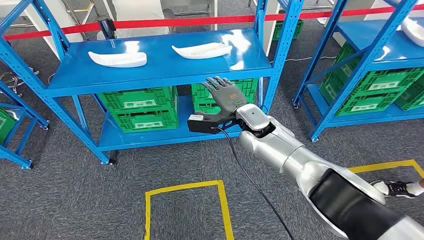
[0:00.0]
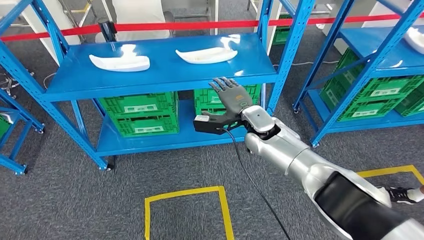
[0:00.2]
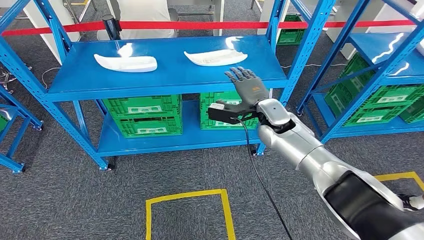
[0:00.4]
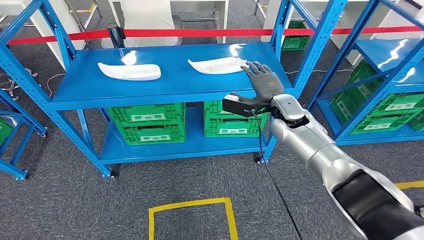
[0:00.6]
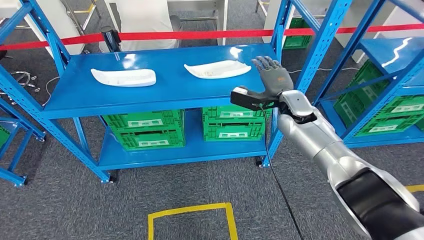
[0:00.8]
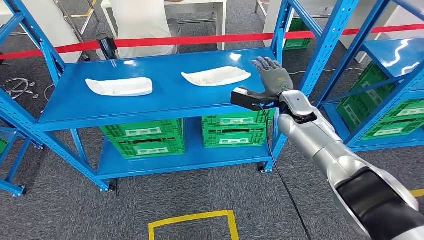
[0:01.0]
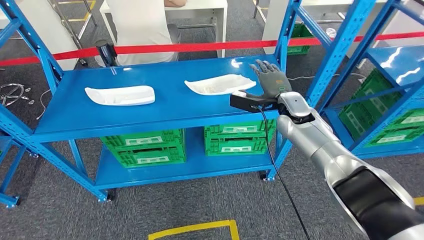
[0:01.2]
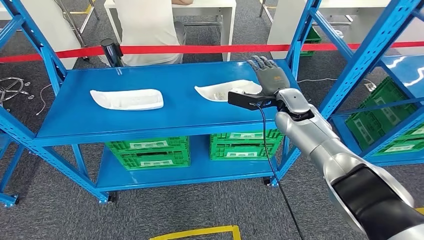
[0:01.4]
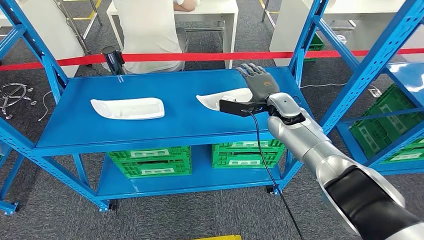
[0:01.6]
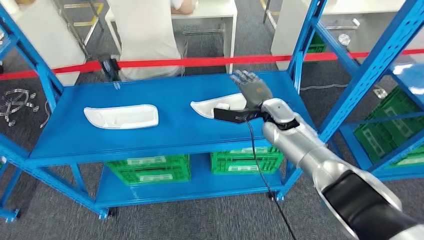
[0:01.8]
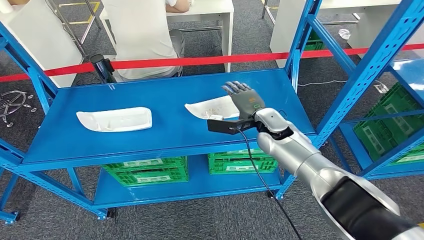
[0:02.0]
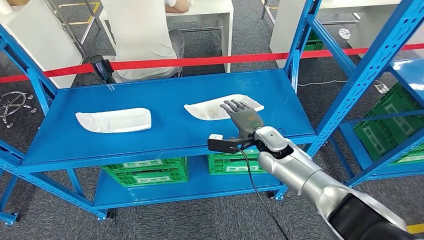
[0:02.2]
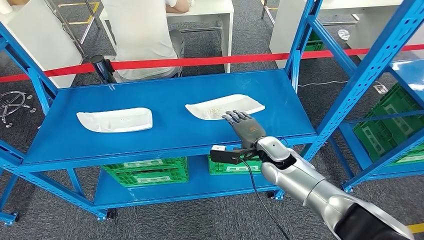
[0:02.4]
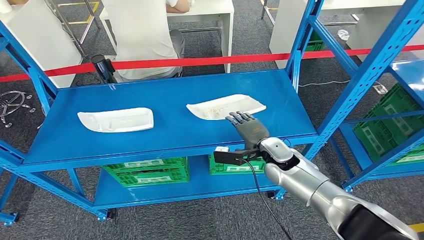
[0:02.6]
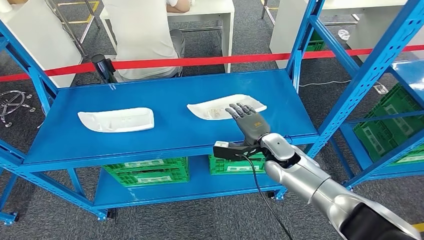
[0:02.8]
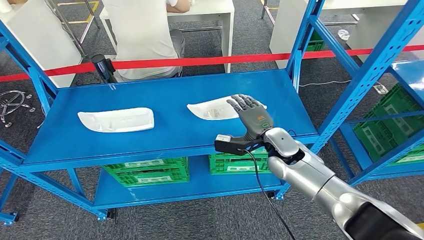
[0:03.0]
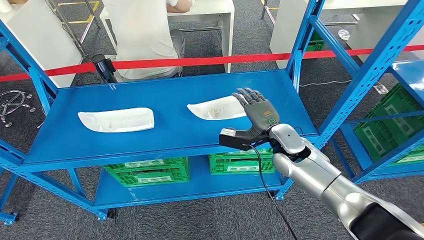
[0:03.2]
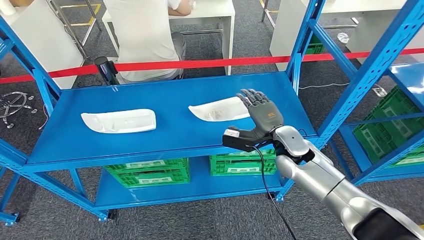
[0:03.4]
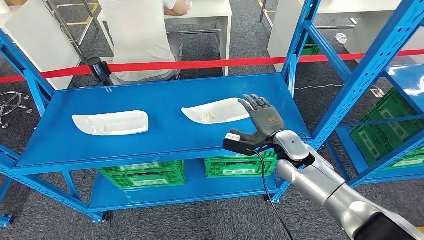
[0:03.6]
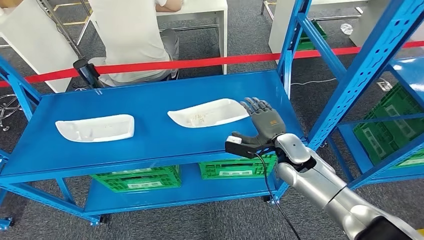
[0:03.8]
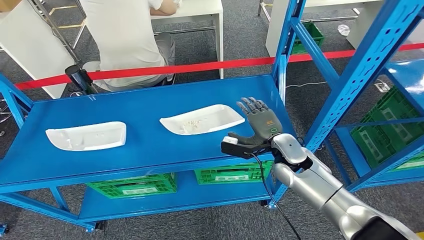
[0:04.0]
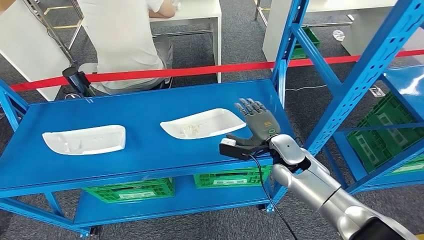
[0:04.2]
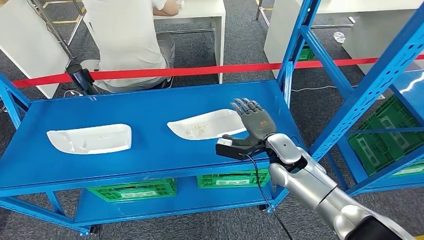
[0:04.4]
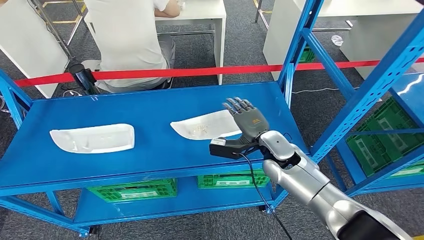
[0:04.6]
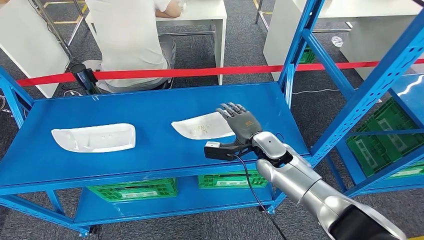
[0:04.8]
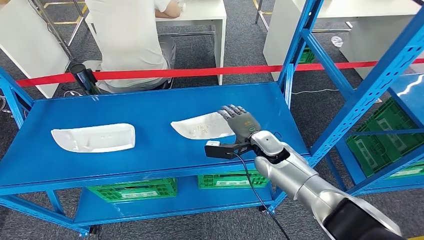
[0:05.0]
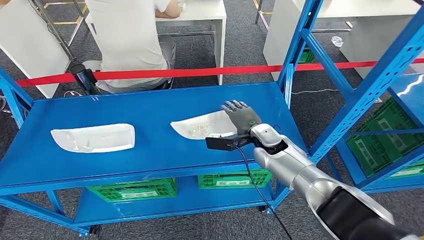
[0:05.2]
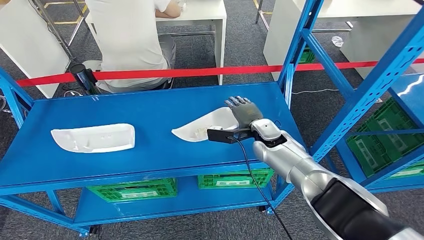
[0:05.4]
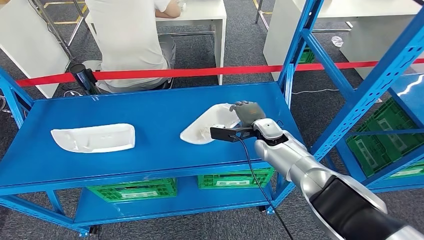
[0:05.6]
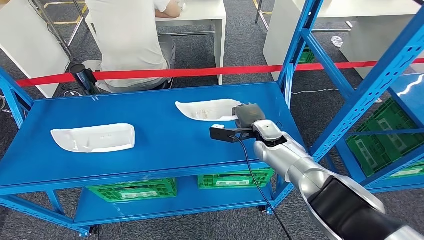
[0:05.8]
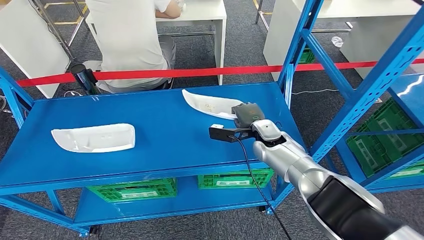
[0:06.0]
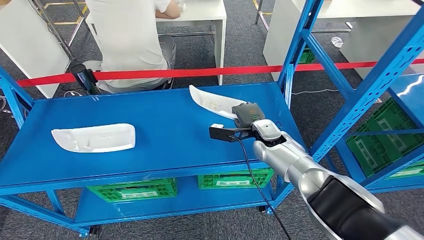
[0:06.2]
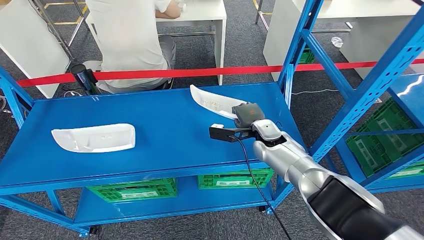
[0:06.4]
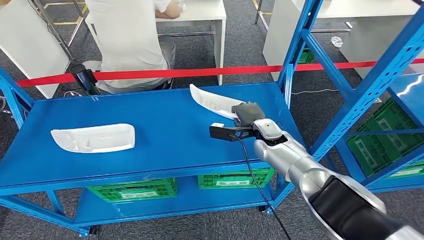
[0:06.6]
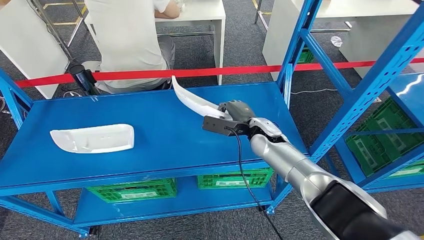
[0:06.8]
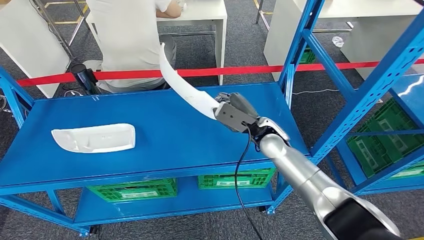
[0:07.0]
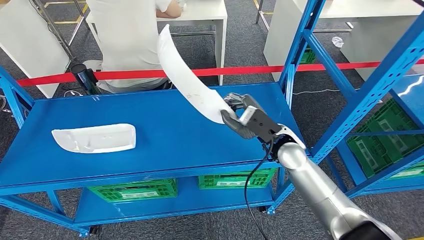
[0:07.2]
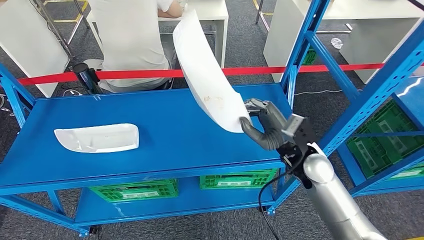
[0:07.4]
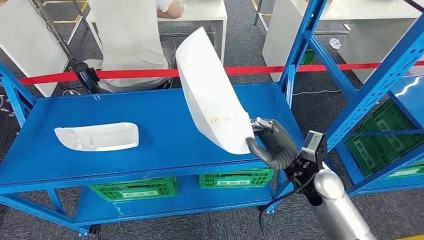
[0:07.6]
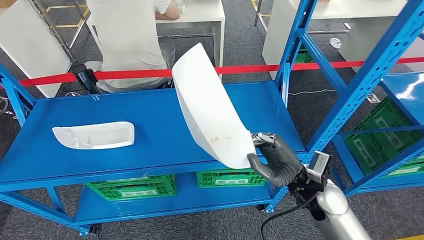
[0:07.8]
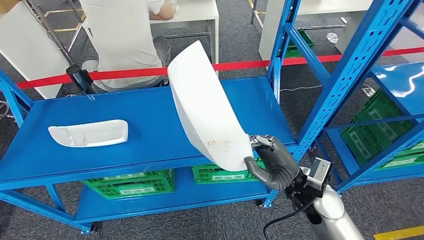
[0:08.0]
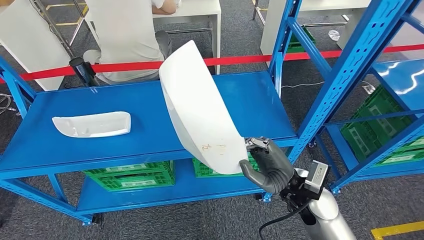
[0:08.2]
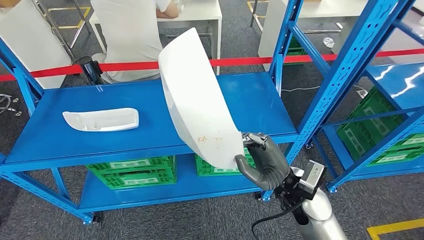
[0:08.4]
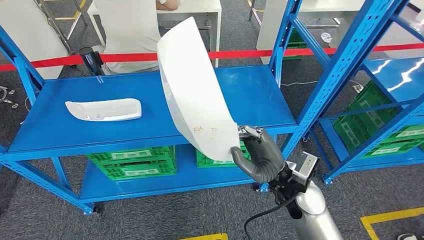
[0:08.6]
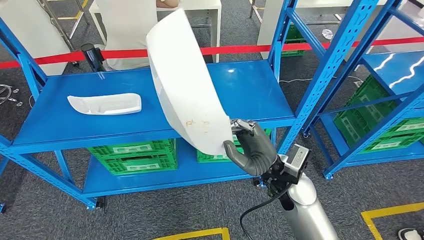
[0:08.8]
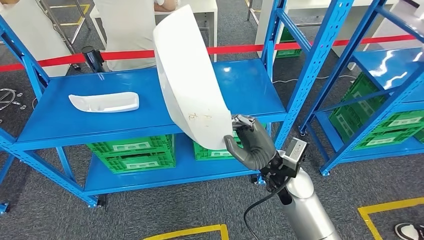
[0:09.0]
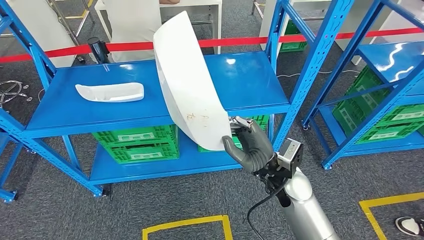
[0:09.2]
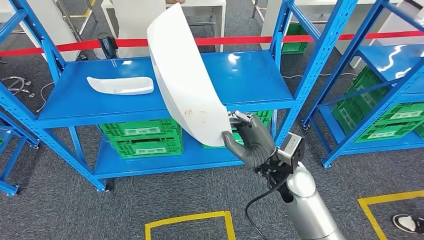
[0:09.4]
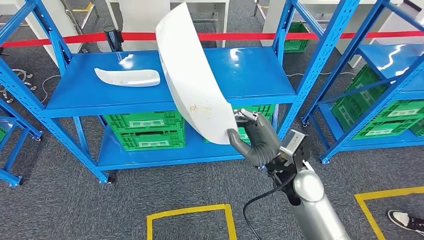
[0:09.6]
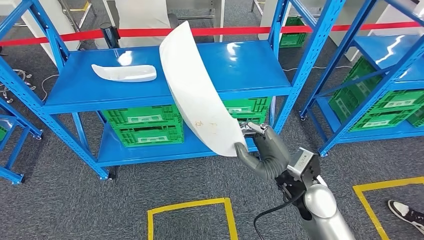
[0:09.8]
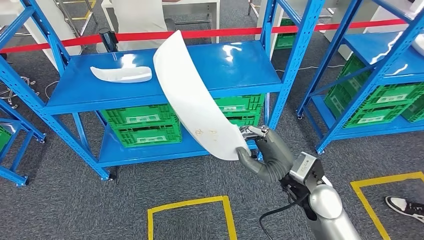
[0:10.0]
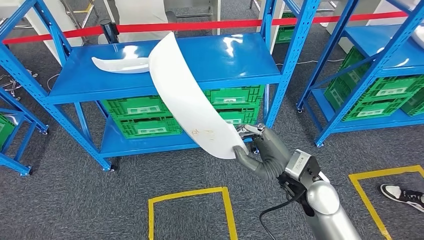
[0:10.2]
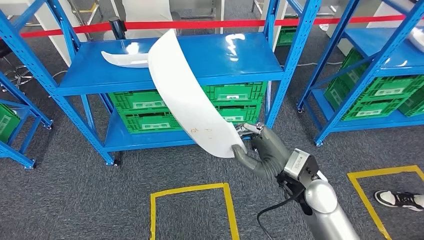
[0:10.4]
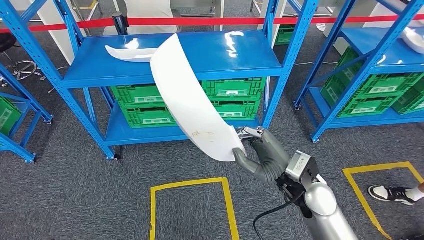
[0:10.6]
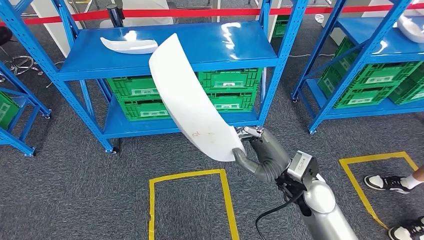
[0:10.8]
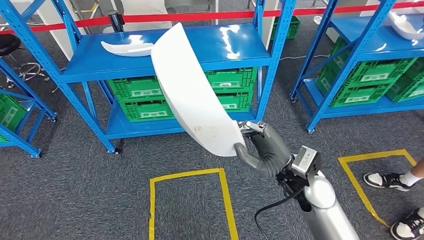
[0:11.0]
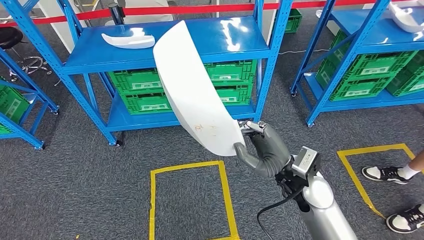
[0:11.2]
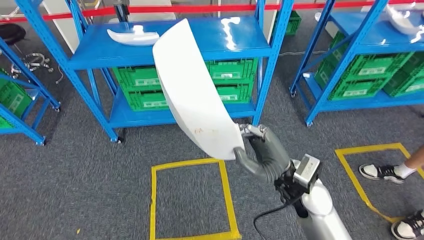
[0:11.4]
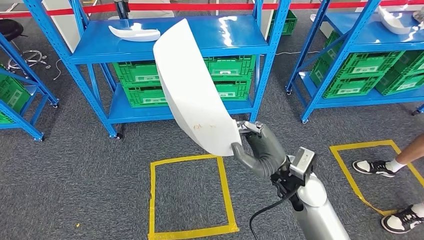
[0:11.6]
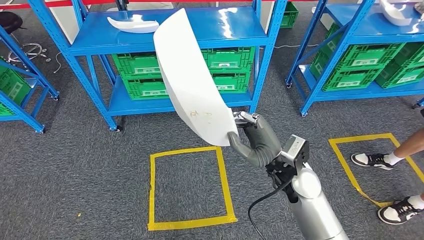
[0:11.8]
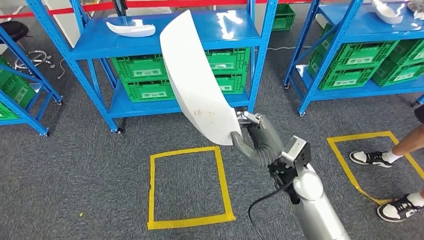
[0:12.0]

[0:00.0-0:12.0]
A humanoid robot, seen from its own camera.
Step, 0:00.0 to 0:08.6: Take small components from the rack.
0:04.4 to 0:06.0: The right hand is displaced forward by roughly 5 cm.

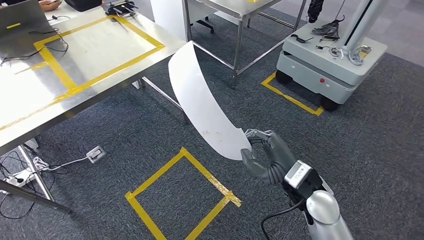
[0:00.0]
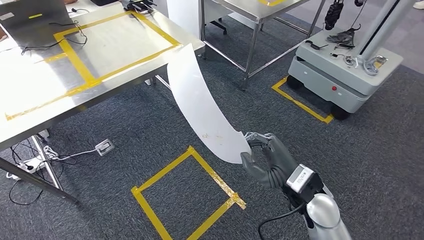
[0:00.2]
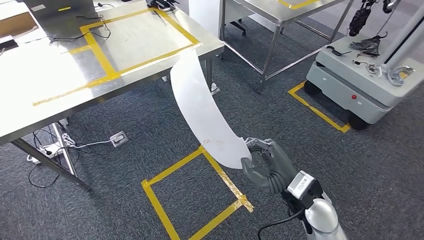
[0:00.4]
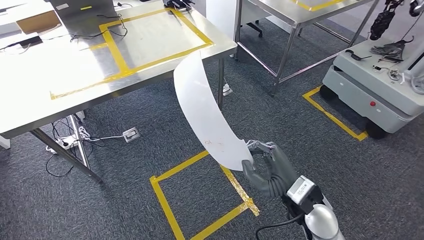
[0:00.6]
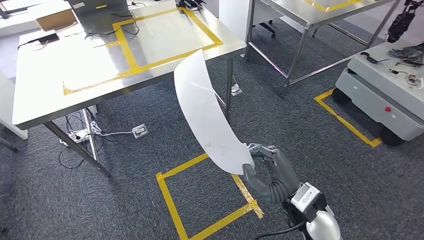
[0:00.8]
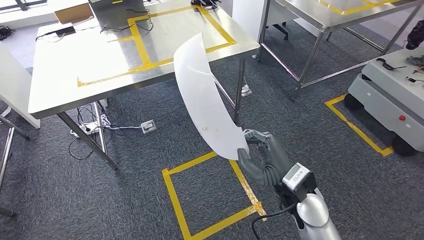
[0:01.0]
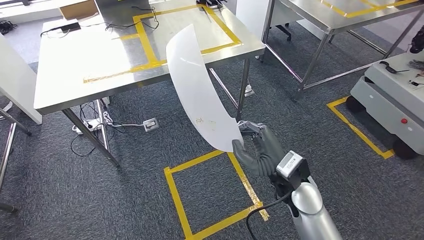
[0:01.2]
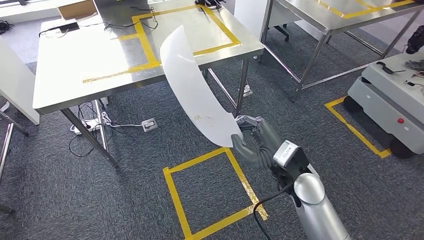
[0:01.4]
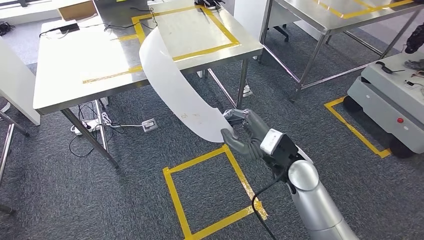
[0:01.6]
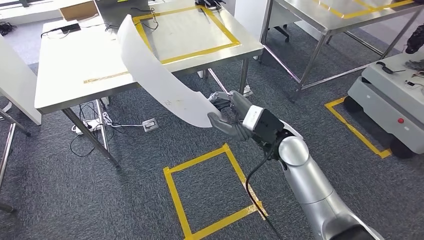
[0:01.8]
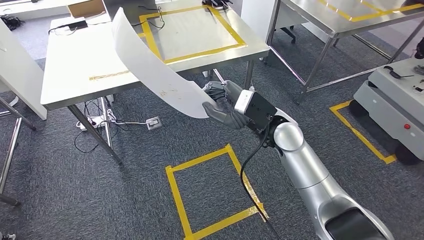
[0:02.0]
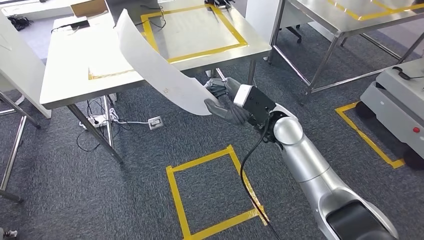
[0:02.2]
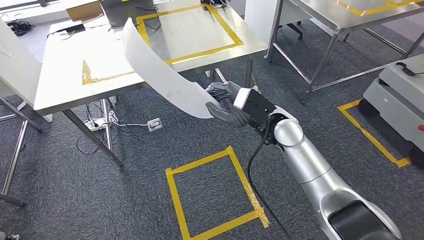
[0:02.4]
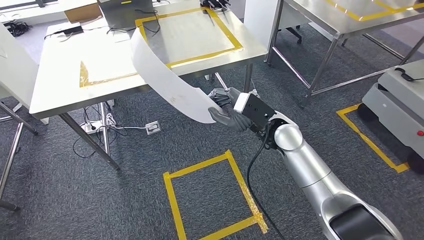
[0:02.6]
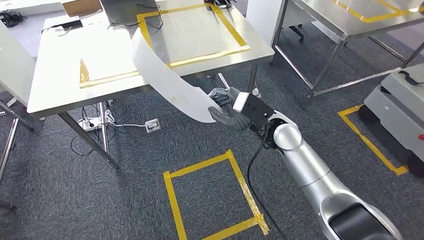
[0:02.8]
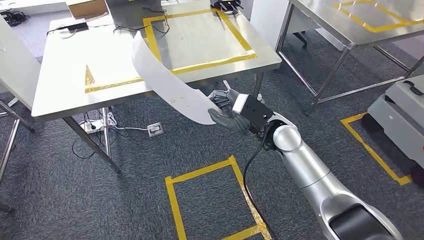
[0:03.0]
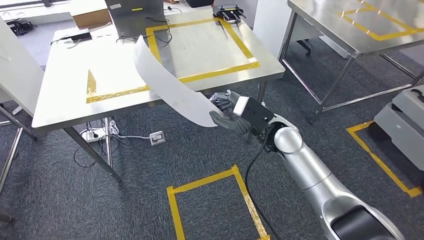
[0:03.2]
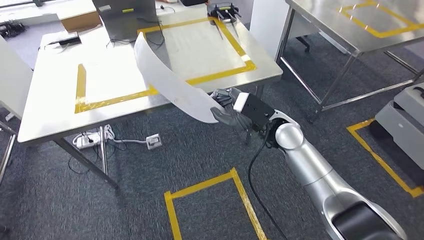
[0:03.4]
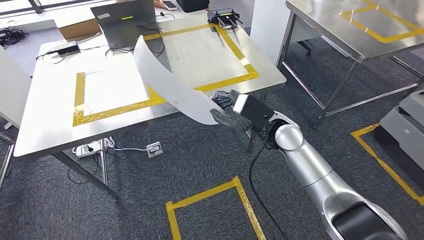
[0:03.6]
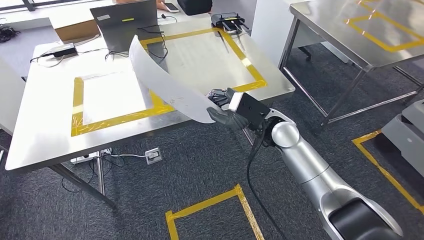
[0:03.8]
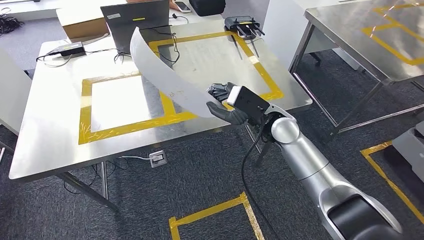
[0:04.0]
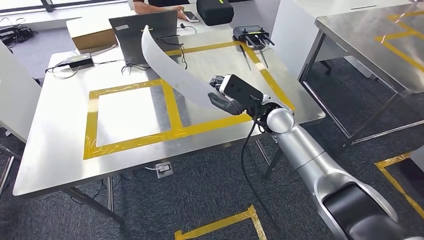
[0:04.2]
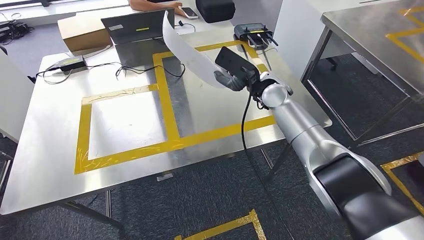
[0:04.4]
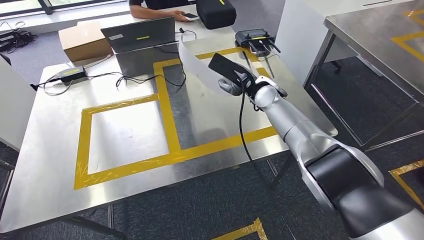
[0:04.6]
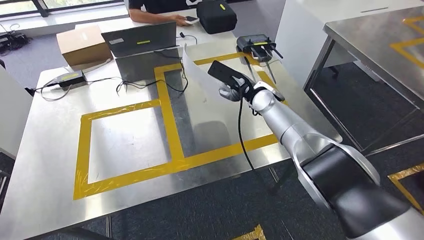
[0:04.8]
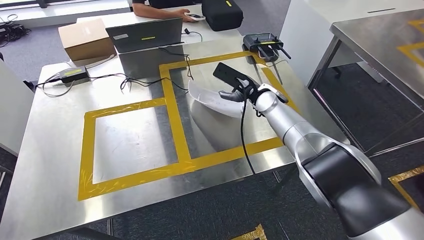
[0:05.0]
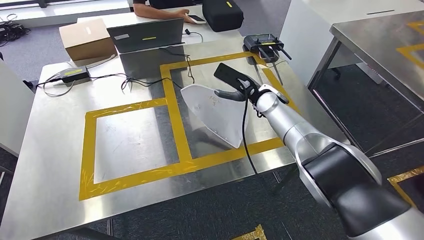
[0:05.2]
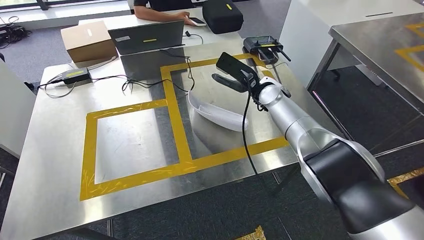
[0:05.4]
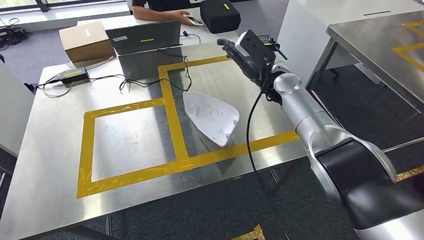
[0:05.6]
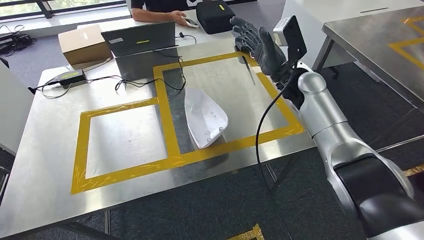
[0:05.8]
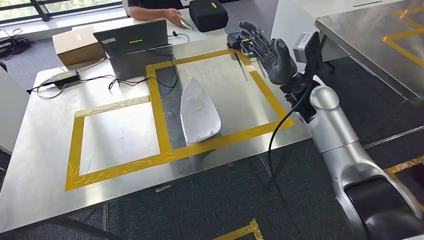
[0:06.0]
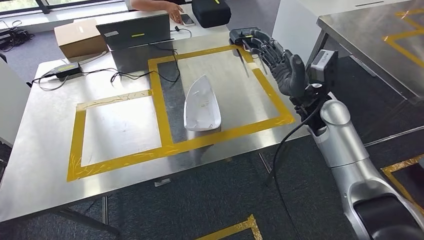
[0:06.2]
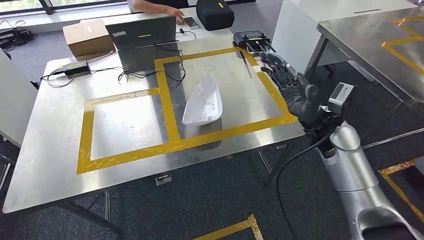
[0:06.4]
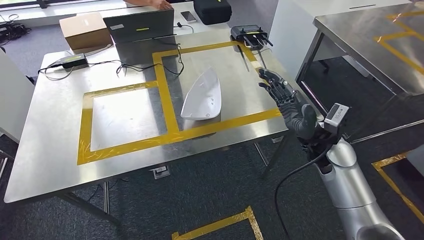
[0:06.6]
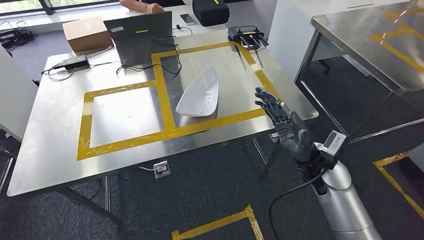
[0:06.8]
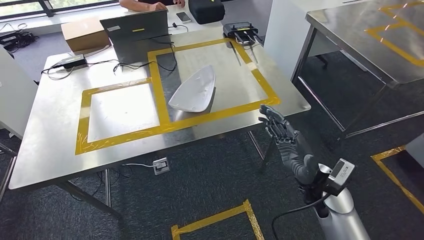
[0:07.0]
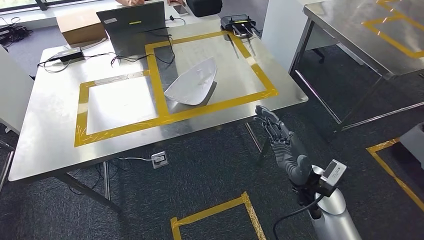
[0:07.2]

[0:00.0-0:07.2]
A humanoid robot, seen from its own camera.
Step, 0:02.0 to 0:06.0: Insert the small parts into the corresponding holes on the workbench.
